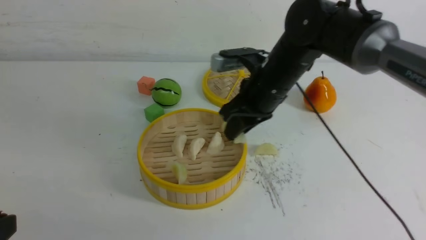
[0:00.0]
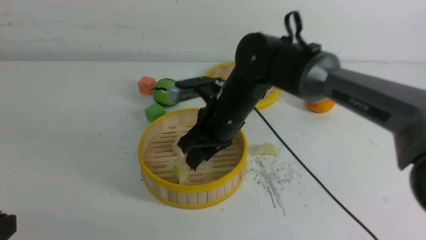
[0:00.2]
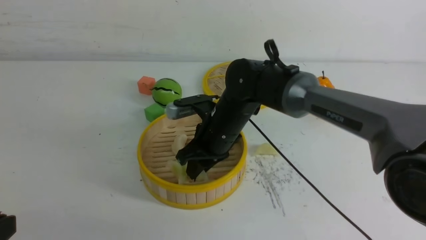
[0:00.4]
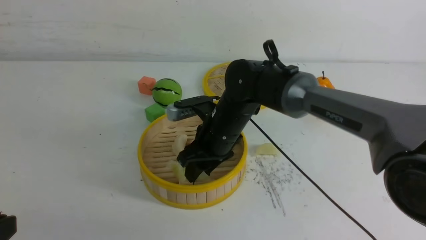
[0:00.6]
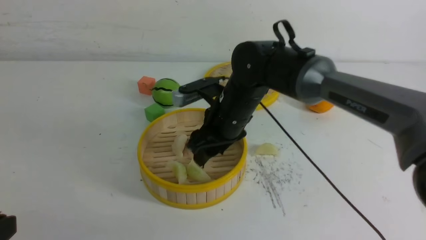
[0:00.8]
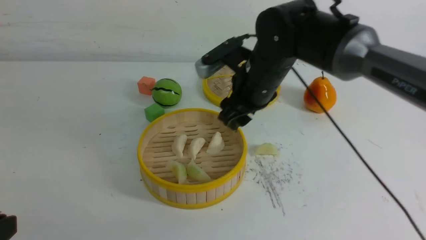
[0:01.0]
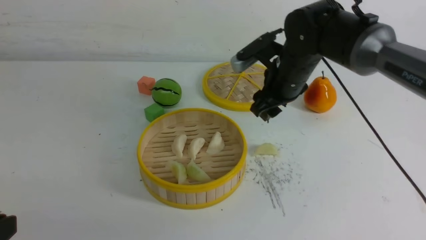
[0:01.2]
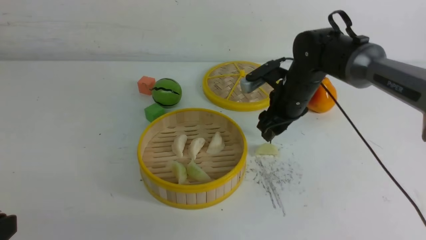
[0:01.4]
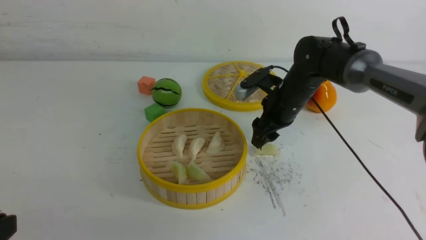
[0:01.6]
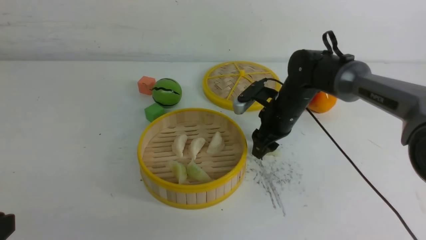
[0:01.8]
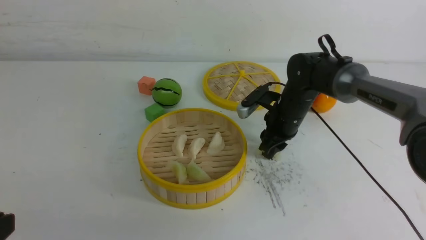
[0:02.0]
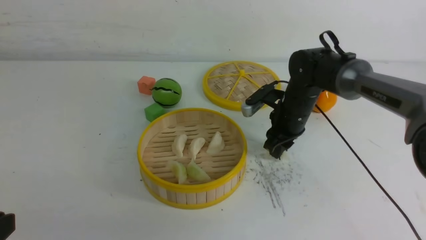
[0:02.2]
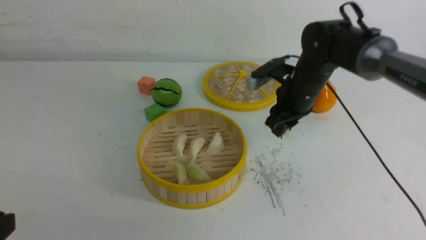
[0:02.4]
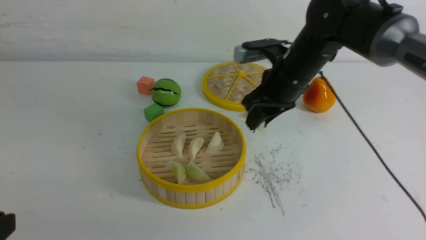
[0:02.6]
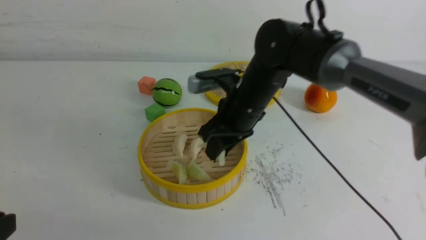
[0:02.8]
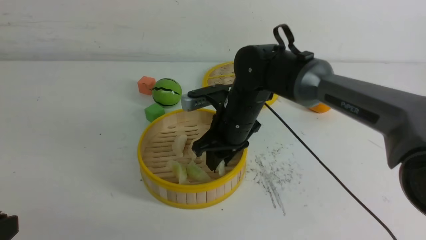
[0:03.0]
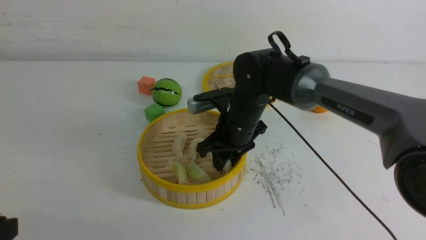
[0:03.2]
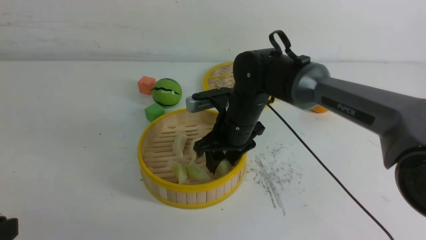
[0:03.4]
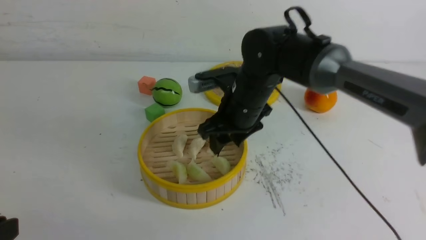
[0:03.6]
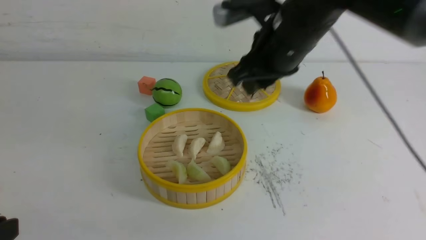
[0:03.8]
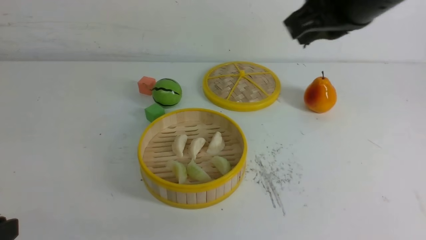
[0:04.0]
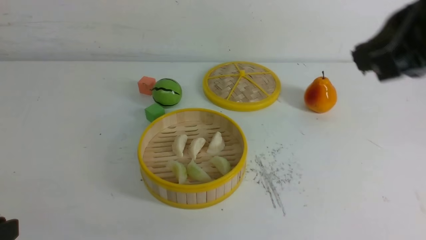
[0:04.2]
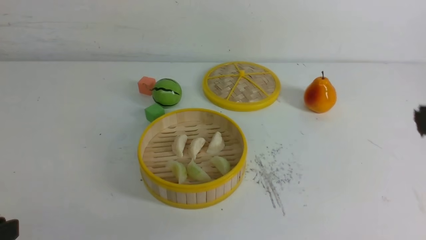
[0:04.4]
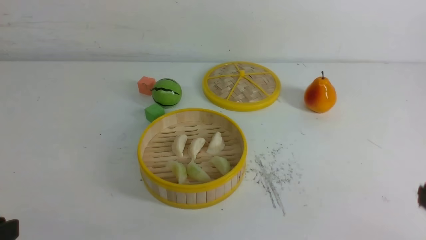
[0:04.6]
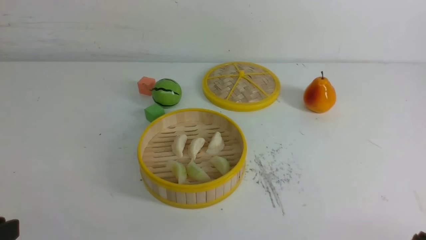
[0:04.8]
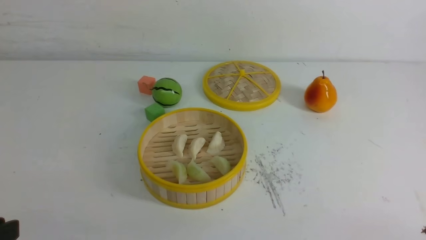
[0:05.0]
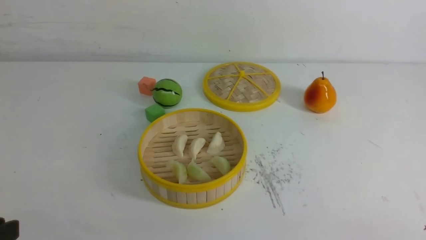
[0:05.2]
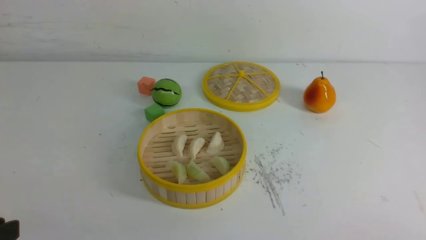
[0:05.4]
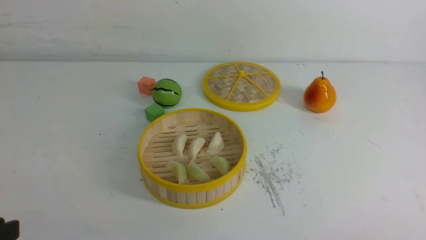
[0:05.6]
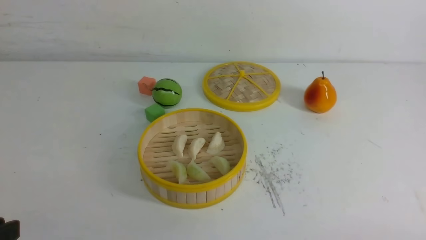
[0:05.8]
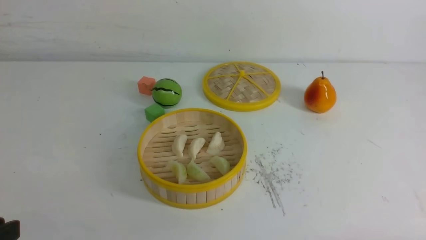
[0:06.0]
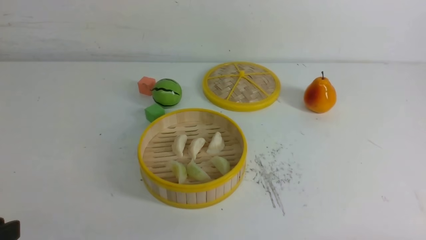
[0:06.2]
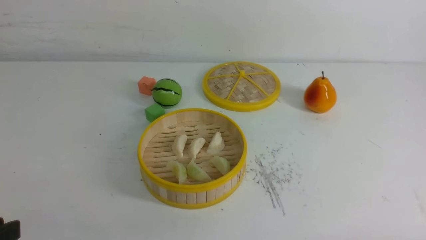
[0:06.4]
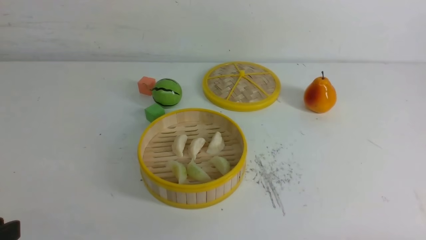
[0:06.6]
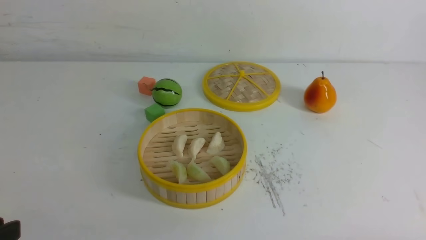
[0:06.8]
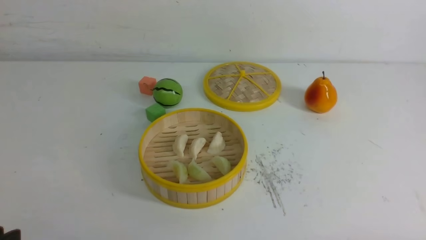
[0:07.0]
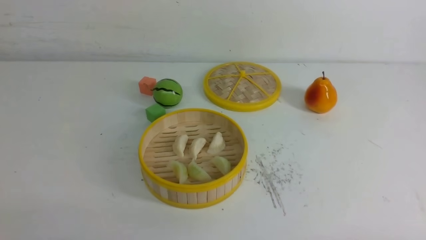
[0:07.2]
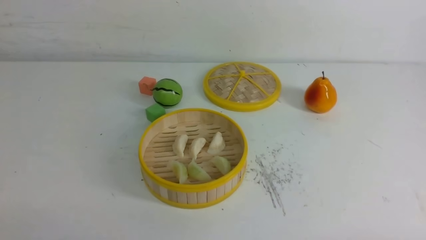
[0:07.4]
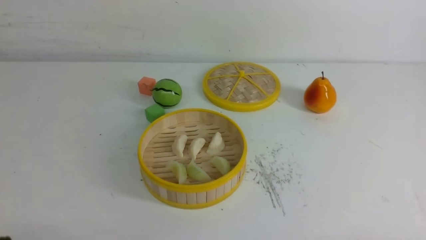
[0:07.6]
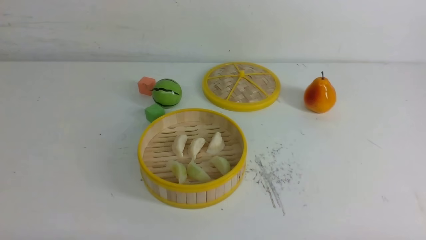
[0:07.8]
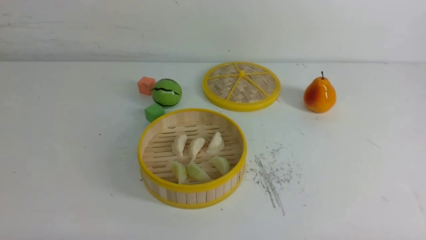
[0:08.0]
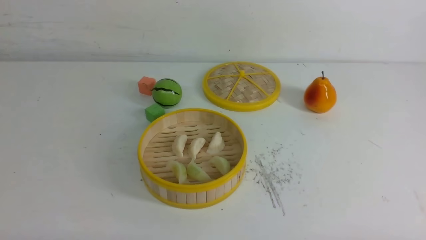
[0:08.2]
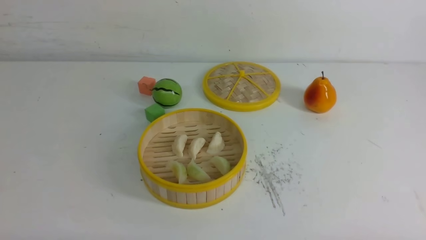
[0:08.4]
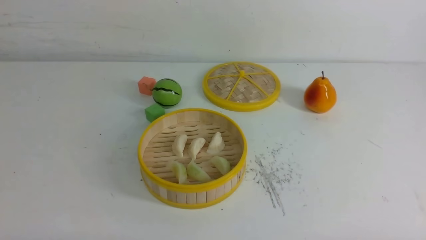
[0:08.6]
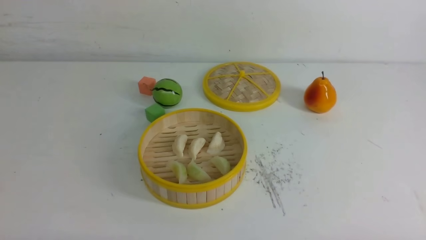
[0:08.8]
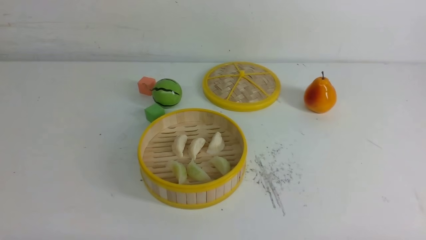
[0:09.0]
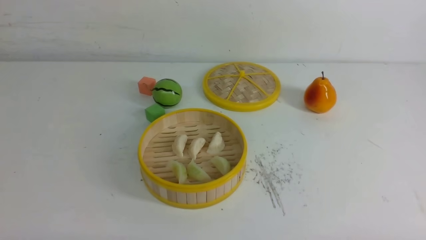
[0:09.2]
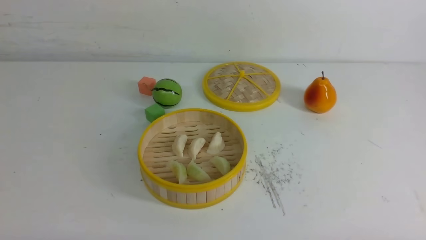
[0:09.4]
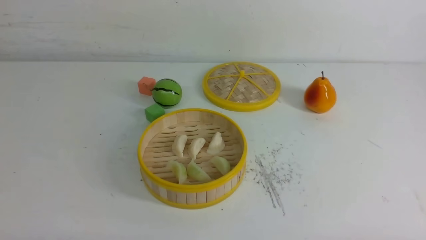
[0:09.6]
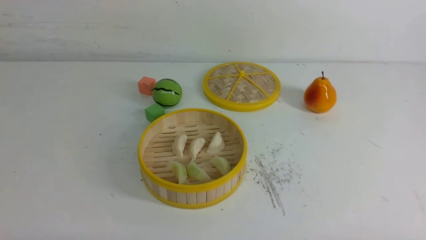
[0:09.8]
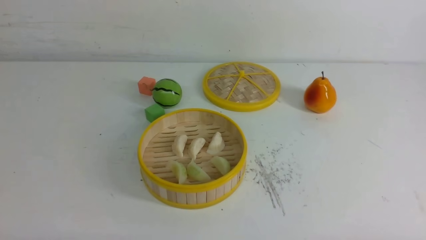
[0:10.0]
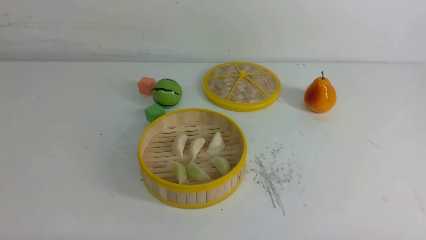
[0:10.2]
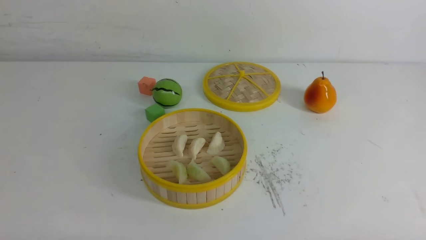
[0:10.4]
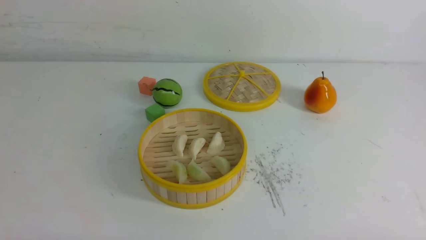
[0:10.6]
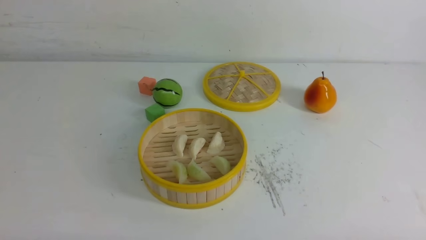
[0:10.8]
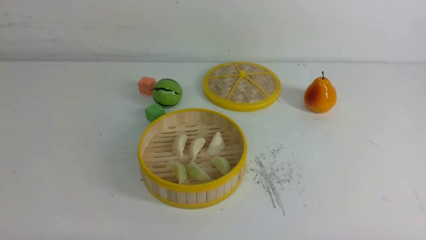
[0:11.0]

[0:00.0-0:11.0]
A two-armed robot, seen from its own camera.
Task of the whole recording: put the dumplings into the steamer on the white table.
Step, 0:00.0 to 0:00.6: use the right arm to put the dumpling into the steamer.
Step, 0:00.8 to 0:02.0: use the right arm to grab a dumpling.
Step, 0:02.2 to 0:03.4: use the right arm to put the dumpling into the steamer.
0:00.0 to 0:01.6: The right gripper goes roughly 10 cm to the right, forward and downward, and opens up.
0:01.6 to 0:03.2: The right gripper travels to the left and backward by approximately 10 cm.
0:03.2 to 0:04.8: The right gripper goes approximately 40 cm backward and to the right, and closes up.
0:07.8 to 0:11.0: Both grippers stay about where they are.

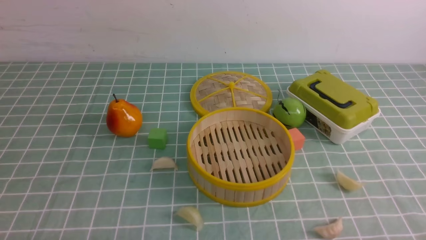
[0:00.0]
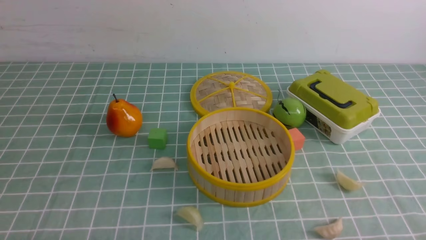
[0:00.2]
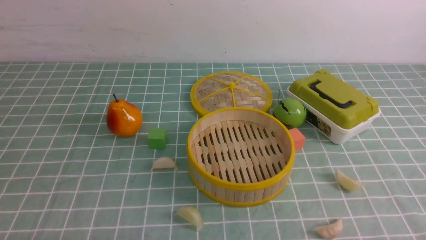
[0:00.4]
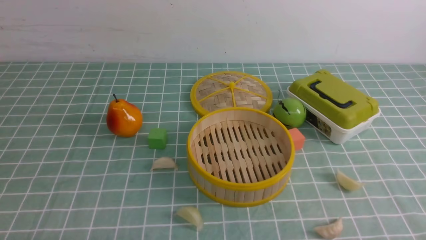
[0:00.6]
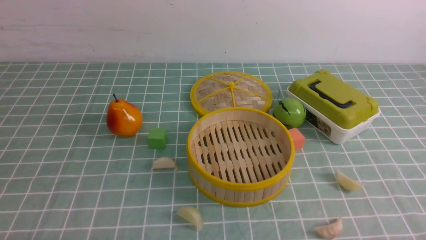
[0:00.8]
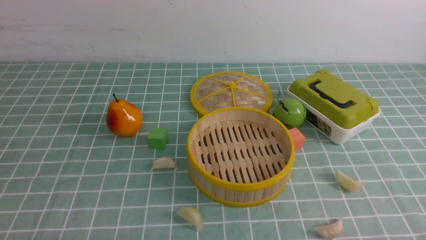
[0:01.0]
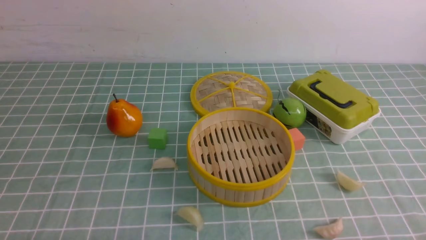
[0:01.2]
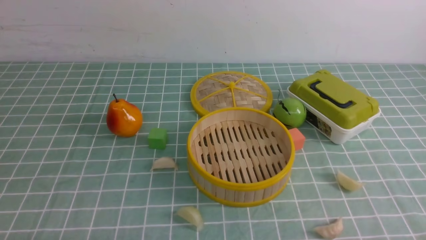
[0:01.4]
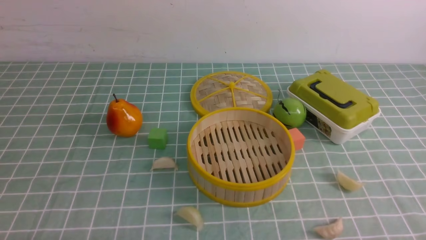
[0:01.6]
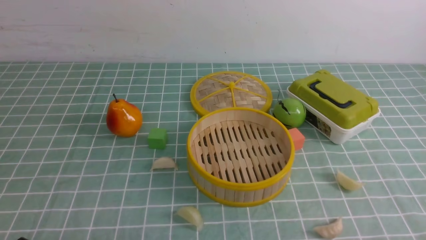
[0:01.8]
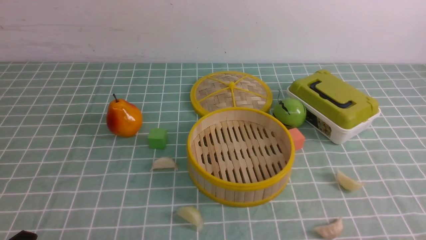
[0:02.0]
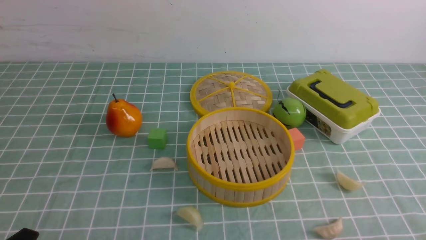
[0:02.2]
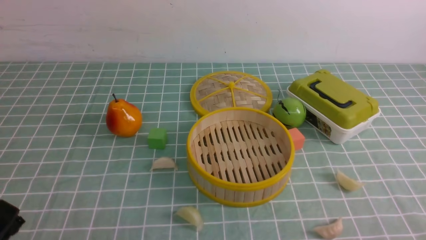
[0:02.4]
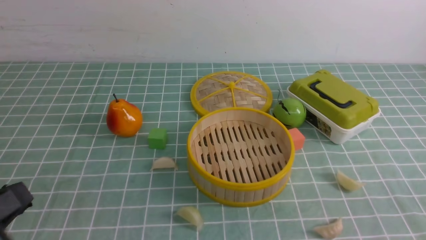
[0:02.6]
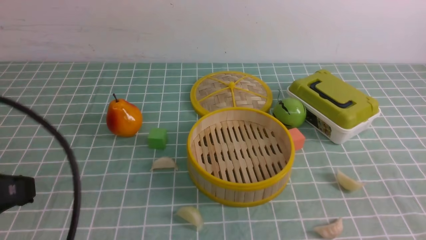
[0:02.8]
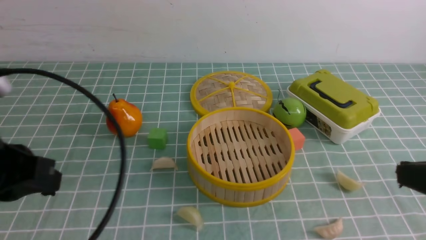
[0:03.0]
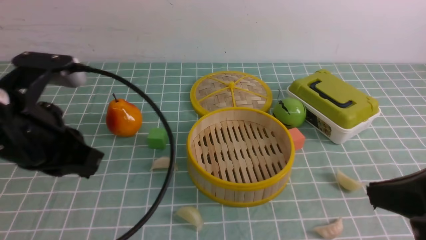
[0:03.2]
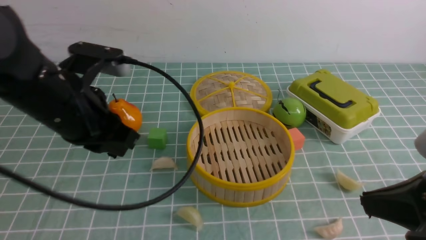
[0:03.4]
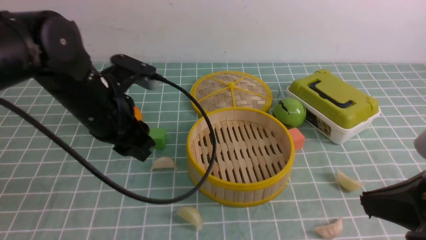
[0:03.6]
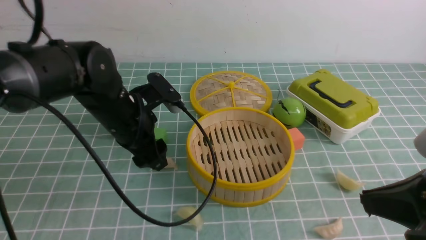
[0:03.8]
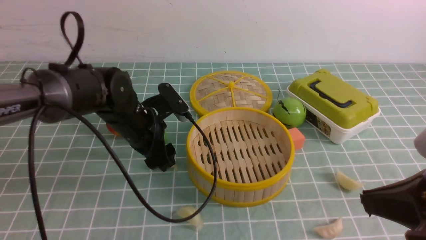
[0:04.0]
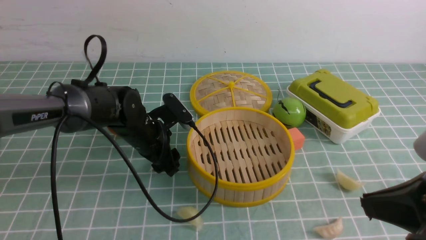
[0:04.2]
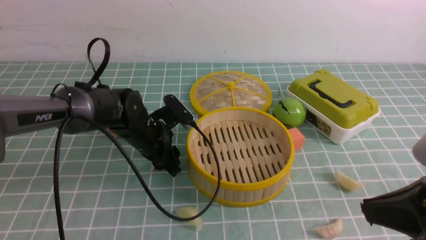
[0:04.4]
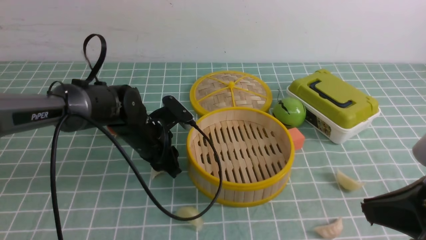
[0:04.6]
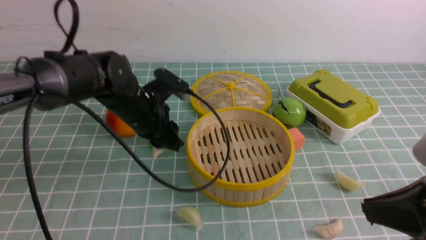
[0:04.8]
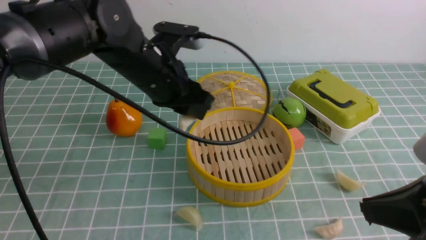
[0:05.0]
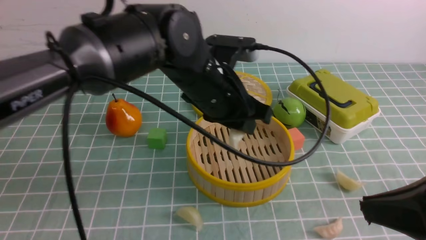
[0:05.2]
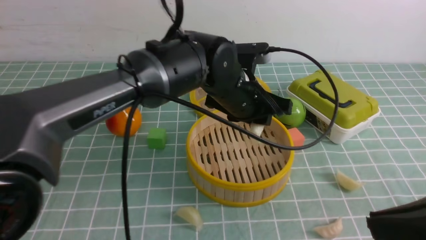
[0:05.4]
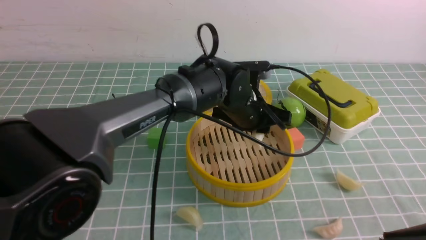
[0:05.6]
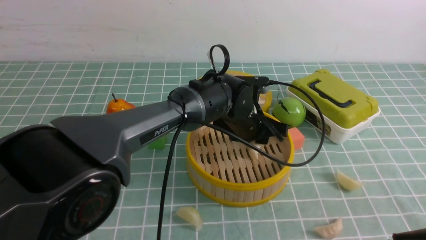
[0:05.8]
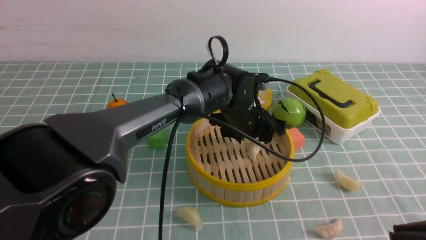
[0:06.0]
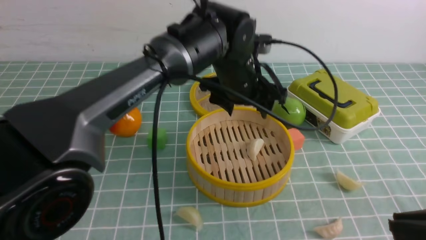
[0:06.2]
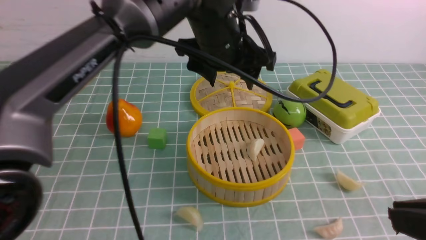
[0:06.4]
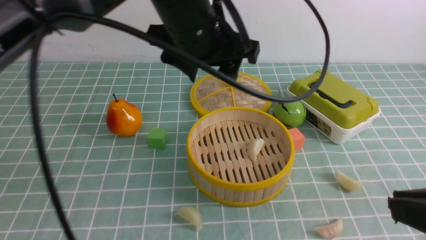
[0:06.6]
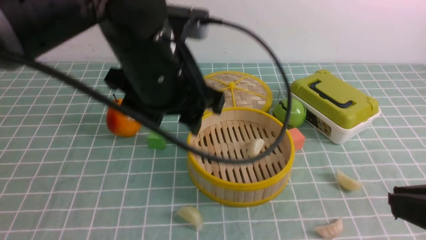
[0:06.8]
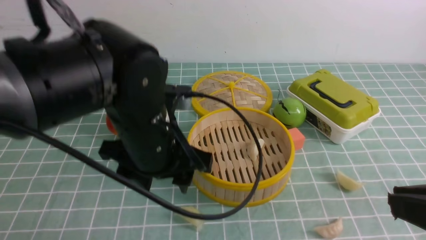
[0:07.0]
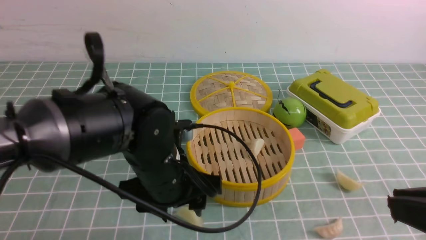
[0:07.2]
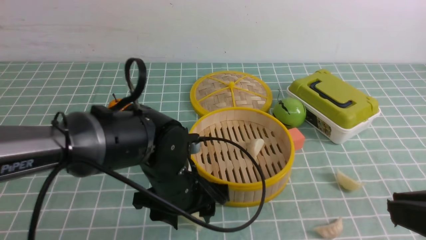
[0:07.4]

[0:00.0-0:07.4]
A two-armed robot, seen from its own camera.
Task of the whole recording: put the dumplings into the steamer on the table with the blue tablecloth.
Step, 0:00.0 to 0:04.4: use the left arm to grab a dumpling.
Step, 0:04.6 to 0:06.2: use the left arm to put the dumpling into the steamer.
0:01.4 to 0:03.0: Both grippers move upward and forward, approximately 20 cm. The left gripper closes; the right gripper closes its fingers.
0:03.0 to 0:04.4: The left gripper heads forward, downward and to the right, covering about 35 cm, and opens up.
0:04.4 to 0:06.0: The right gripper goes about 5 cm backward. Meanwhile the left gripper moves to the right, approximately 15 cm.
0:06.0 to 0:07.4: The left gripper heads backward and to the left, covering roughly 15 cm, and moves about 15 cm upward and comes back.
